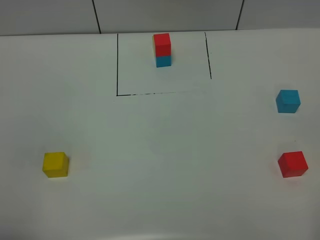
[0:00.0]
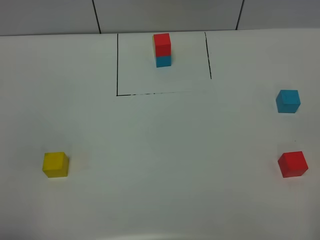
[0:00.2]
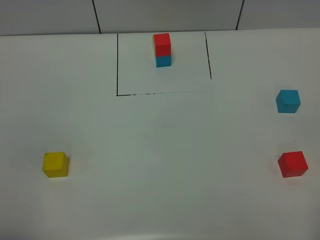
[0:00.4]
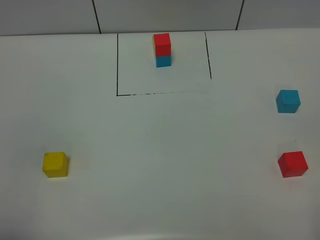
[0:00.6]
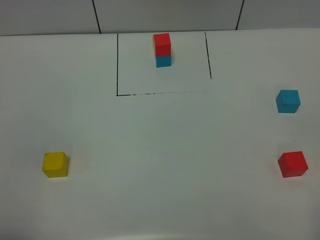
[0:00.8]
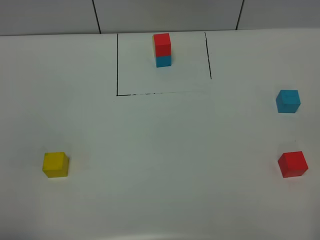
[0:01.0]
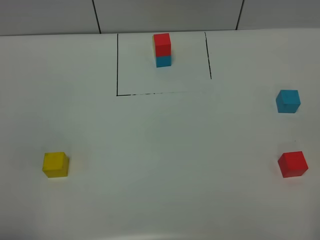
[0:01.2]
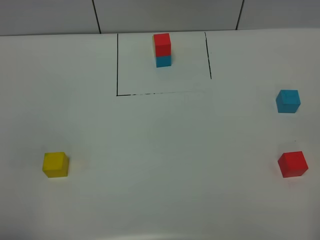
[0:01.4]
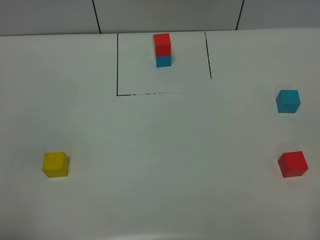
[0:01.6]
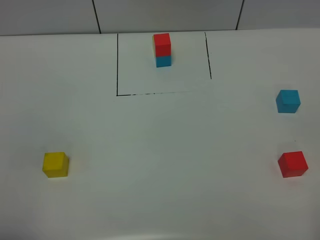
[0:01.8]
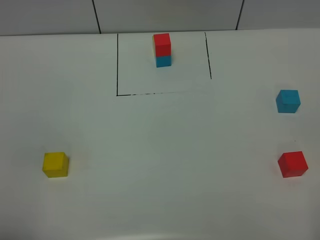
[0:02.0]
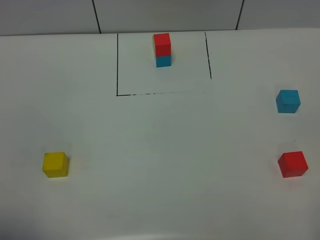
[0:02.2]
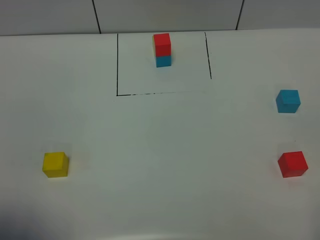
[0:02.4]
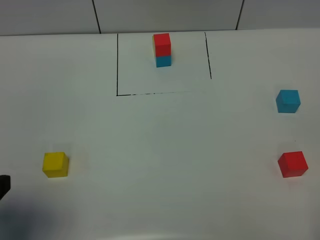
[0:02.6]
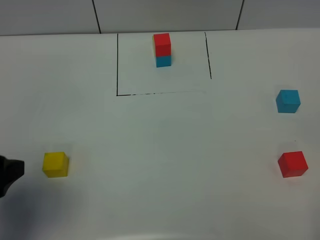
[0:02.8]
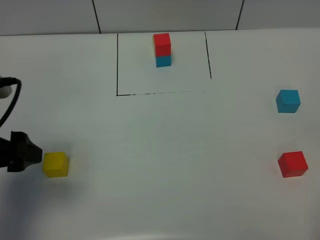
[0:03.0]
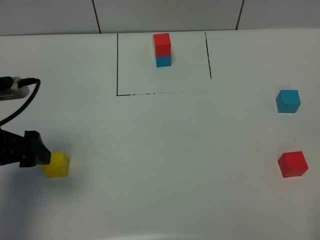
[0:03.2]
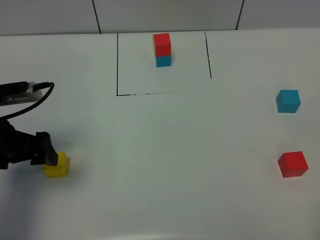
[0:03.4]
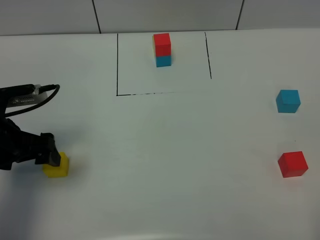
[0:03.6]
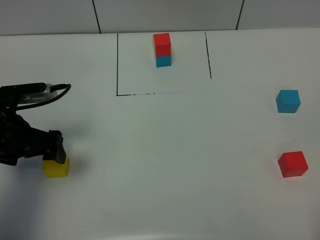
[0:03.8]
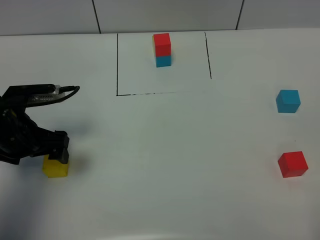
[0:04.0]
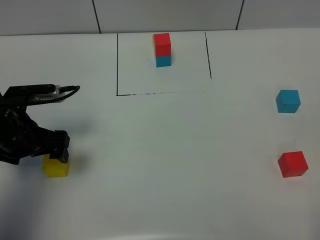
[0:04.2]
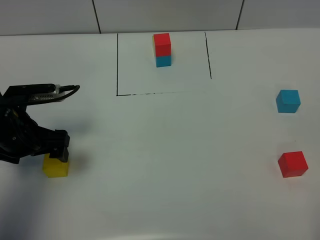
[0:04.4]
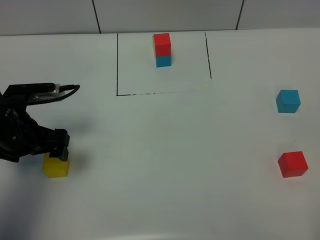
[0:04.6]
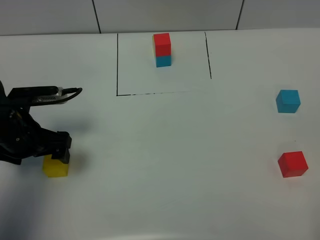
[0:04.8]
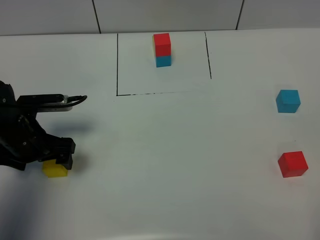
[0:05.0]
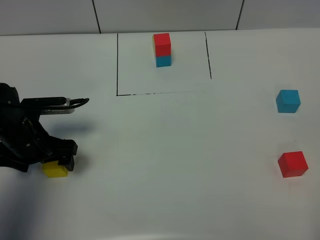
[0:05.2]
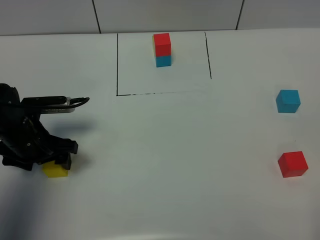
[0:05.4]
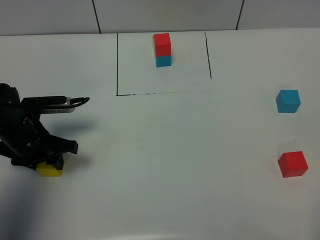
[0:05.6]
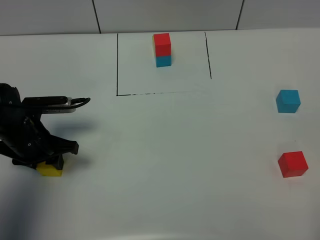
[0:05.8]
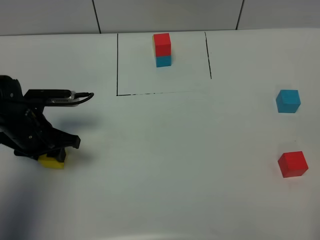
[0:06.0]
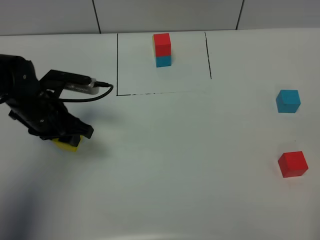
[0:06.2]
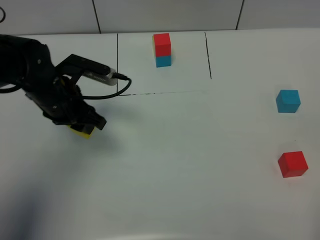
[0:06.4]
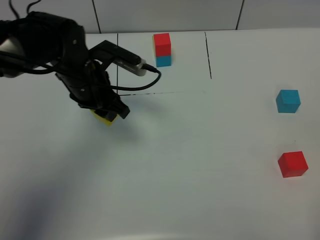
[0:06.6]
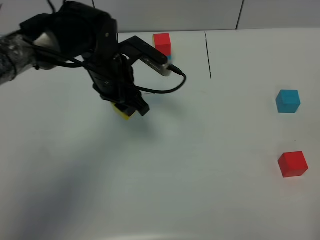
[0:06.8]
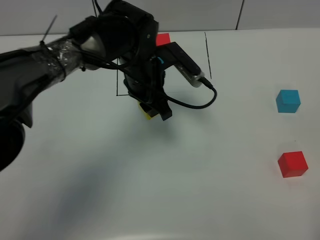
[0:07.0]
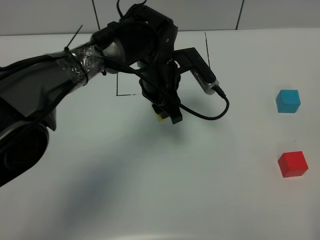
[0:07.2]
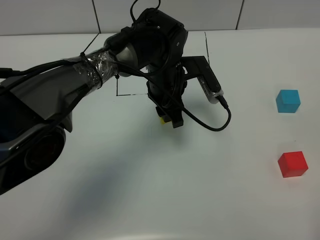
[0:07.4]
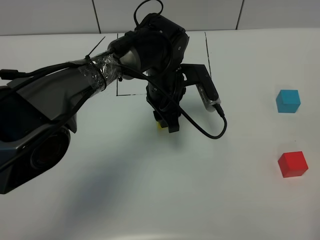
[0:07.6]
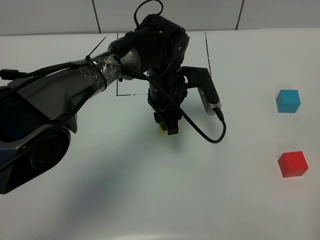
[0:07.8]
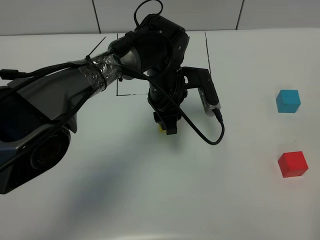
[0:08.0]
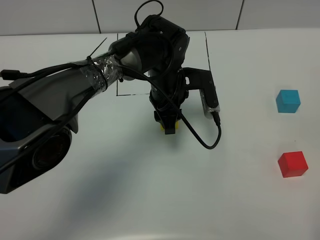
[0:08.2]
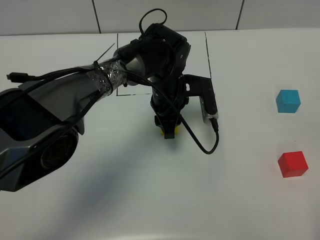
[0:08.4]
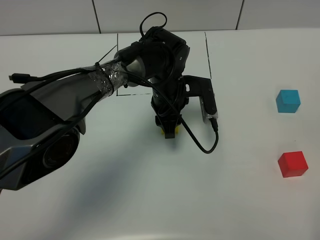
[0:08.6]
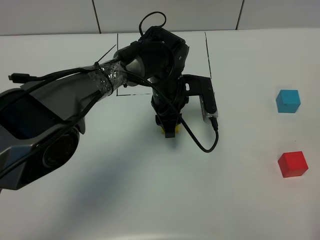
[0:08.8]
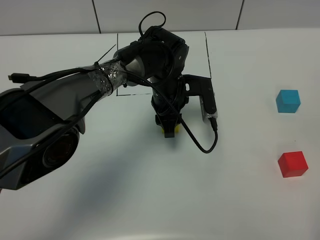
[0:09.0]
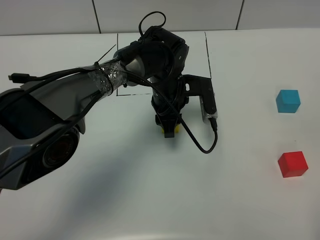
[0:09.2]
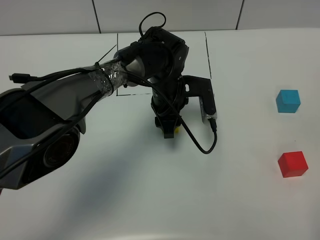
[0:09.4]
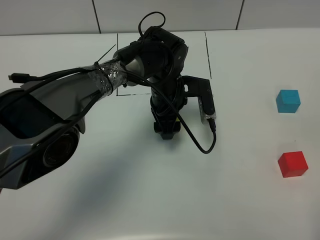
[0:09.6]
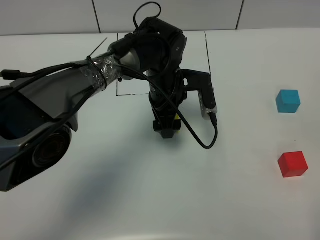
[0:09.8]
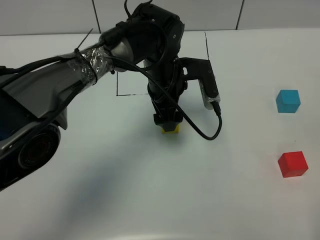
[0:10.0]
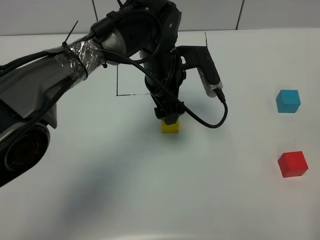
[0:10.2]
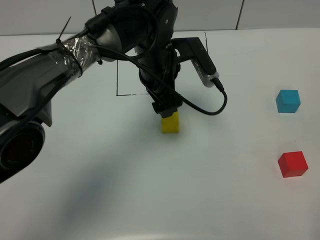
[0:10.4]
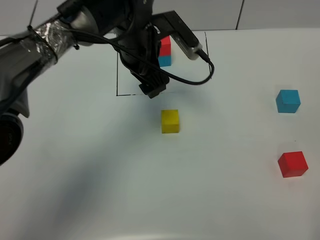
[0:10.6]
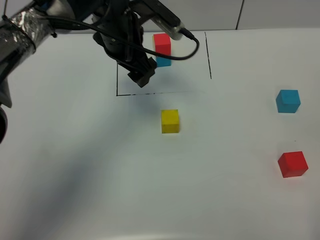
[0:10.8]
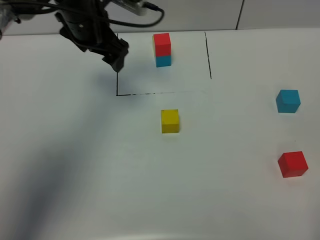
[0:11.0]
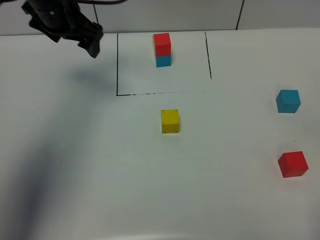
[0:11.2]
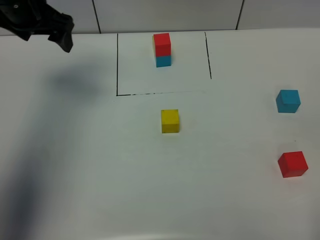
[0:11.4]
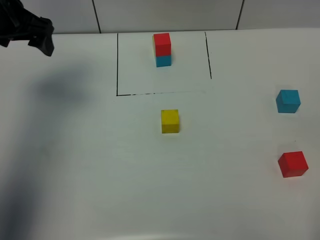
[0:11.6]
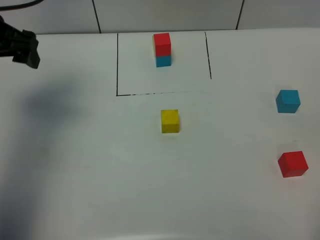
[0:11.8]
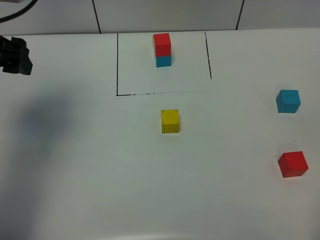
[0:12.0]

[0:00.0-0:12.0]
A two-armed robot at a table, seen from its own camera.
Task of the whole recording: According to the building block template in front, assemble the scattered blocks together.
Step, 0:00.0 to 0:09.2: Put the yellow build block in the center of the table.
0:00.0 to 0:01.6: Both grippers stay put.
0:01.6 to 0:03.0: The left gripper is displaced forward by approximately 20 cm, and opens.
0:03.0 to 0:04.4: The left gripper shifts some 15 cm downward and forward.
0:04.4 to 0:06.0: The left gripper closes up.
0:06.0 to 0:07.6: The left gripper is displaced to the right by roughly 25 cm.
0:07.6 to 0:09.0: The grippers make only small movements.
0:09.0 to 0:10.4: The left gripper shifts about 10 cm upward, and opens.
0:10.4 to 0:12.0: The left gripper shifts some 30 cm to the left and upward.

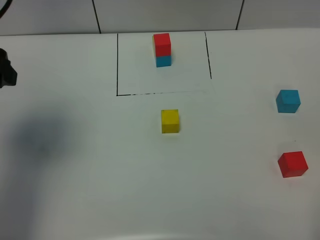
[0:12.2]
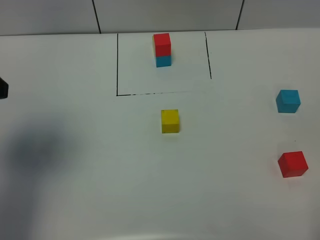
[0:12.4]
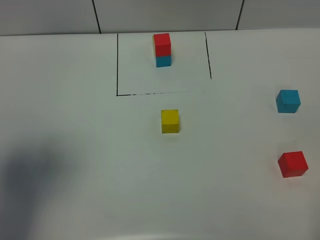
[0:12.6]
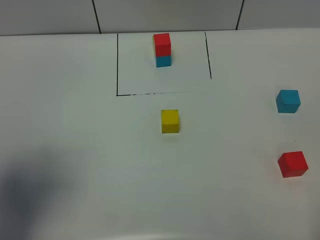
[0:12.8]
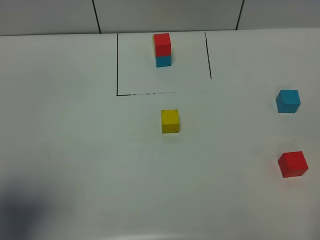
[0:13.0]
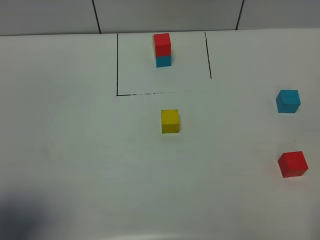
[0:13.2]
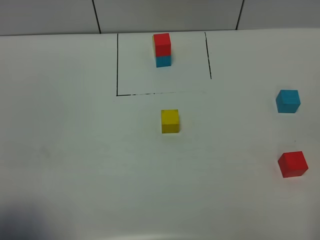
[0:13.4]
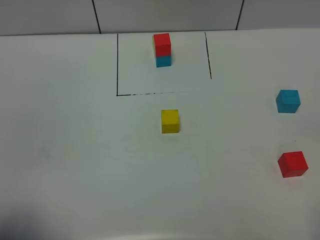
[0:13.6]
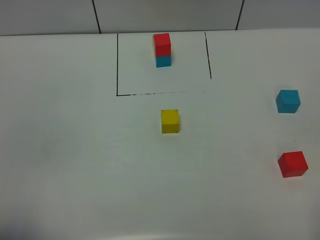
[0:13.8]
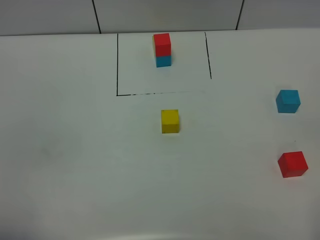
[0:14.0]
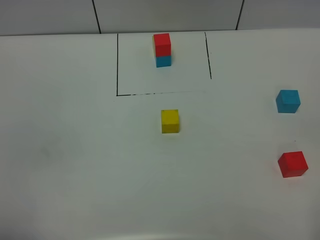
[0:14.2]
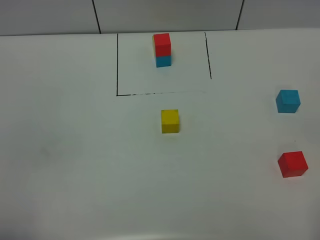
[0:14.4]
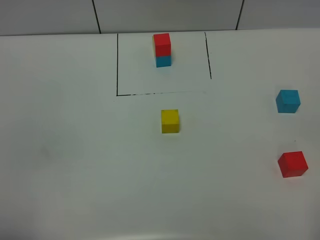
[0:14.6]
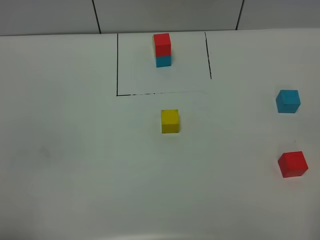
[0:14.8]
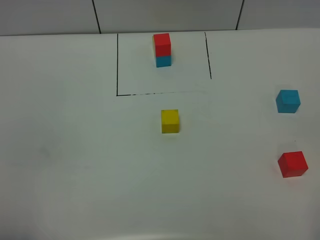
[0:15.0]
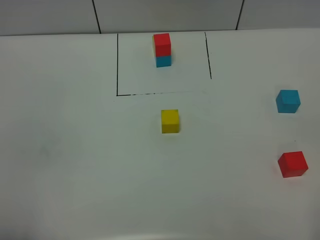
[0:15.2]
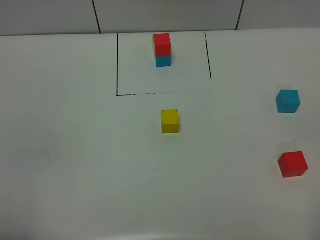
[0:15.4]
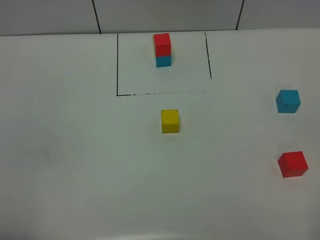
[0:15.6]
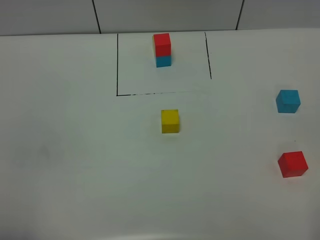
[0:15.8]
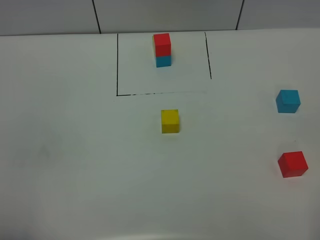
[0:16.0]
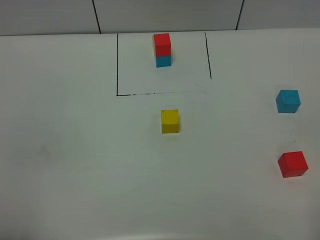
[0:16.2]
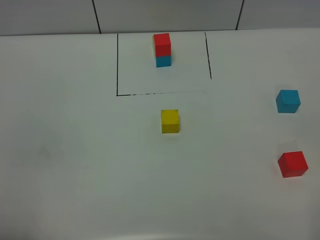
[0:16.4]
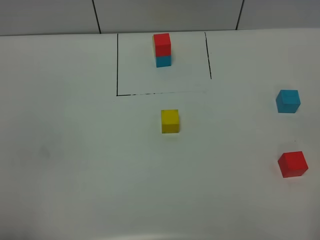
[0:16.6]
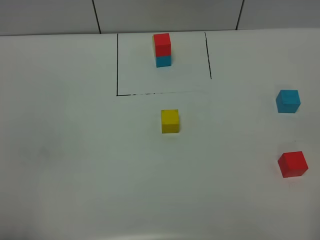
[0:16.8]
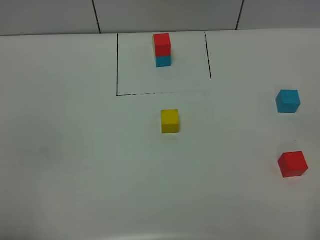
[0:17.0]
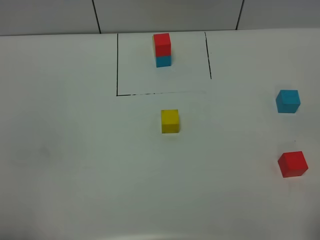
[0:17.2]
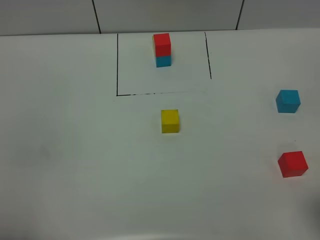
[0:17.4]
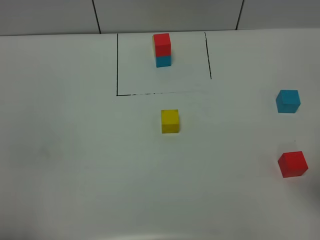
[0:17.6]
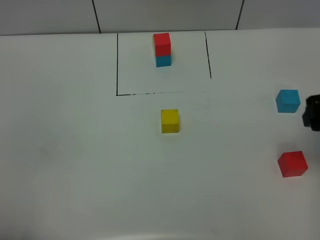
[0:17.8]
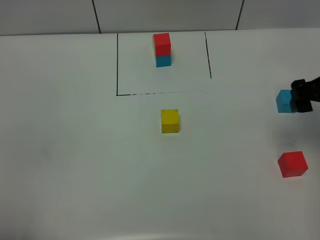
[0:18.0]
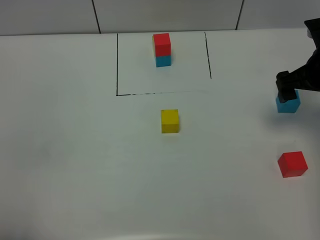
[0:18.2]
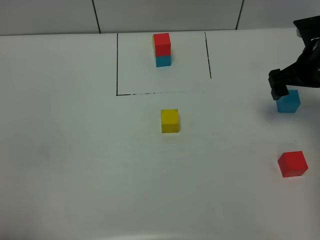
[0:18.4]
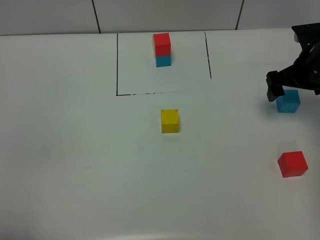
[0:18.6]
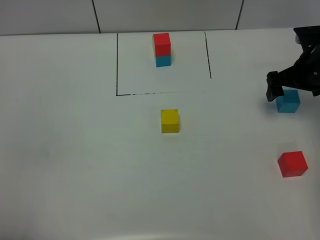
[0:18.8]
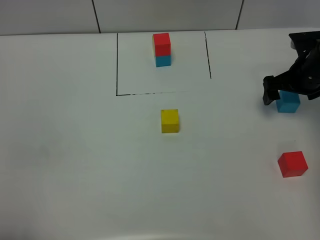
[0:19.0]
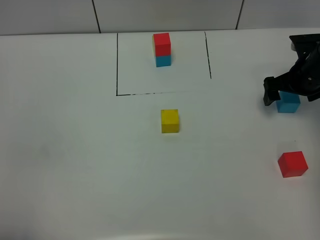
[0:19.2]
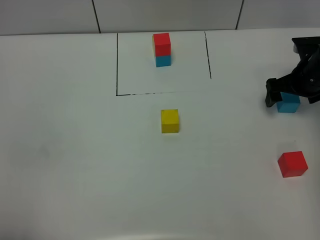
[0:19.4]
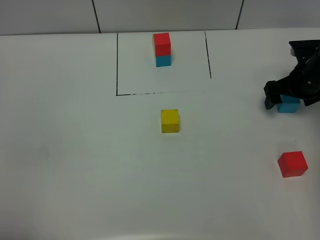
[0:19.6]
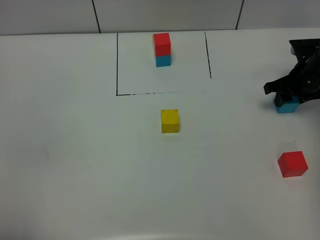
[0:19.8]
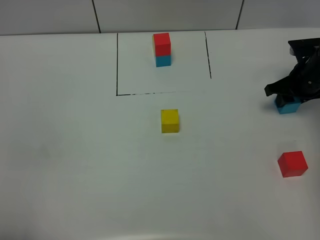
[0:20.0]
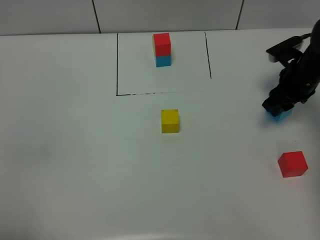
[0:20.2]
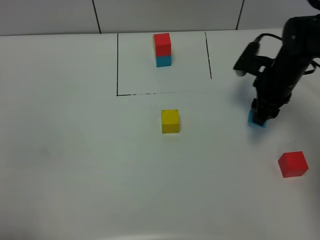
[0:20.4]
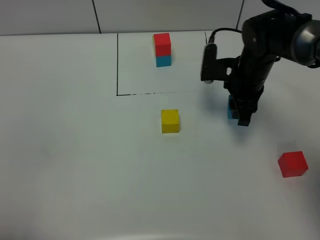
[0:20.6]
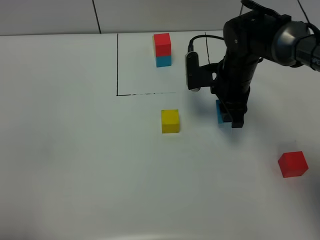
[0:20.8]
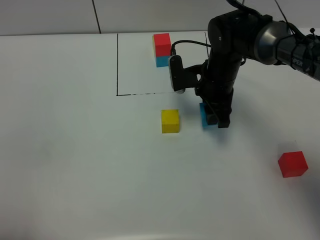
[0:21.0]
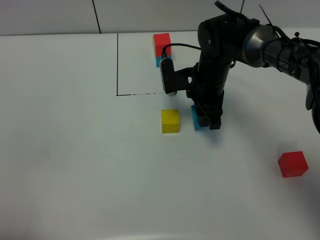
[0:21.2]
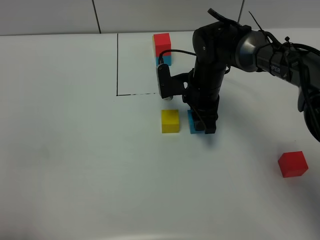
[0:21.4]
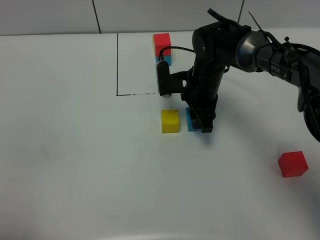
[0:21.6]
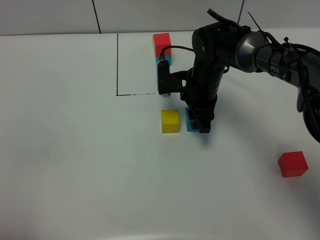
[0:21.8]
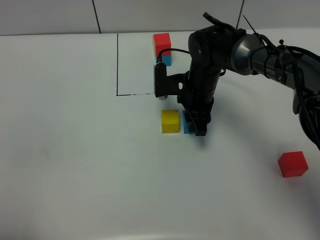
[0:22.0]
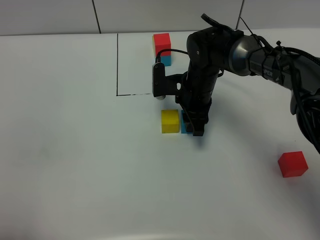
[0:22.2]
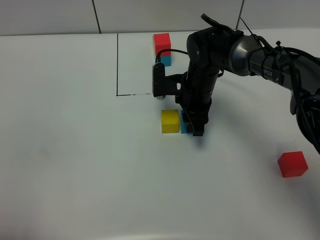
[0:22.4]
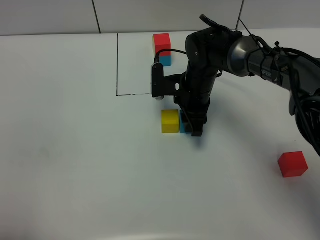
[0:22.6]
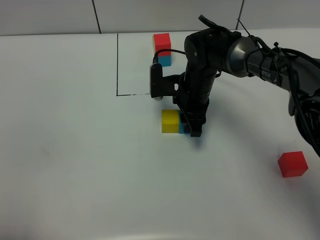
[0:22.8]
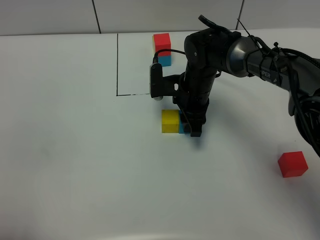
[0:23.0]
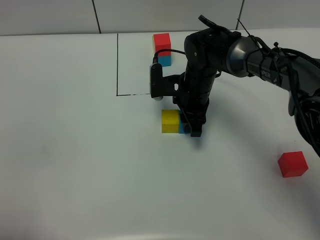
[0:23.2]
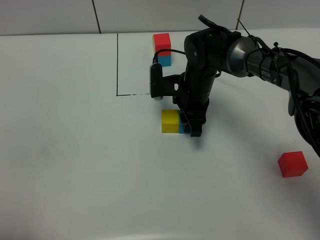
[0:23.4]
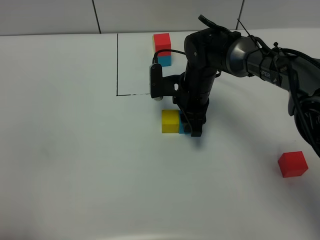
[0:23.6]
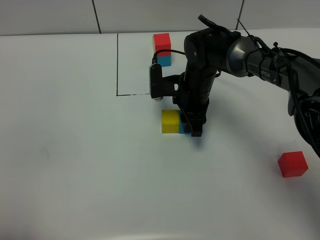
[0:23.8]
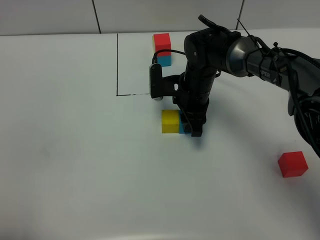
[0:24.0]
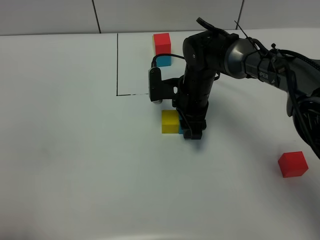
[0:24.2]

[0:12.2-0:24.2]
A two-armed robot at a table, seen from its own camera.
Task of the whole recording: According to the building block template in front, assemble the scattered blocks together.
Step, 0:12.2 to 0:24.0: Put the blue build block on the right of the yellow build block.
0:12.2 to 0:13.8: The left gripper shifts approximately 25 cm backward.
0:15.2 to 0:16.6: Both grippers stay about where they are.
0:16.6 to 0:18.2: The right gripper heads forward, covering roughly 35 cm.
0:18.2 to 0:19.8: The right gripper shifts approximately 10 cm downward and forward, and closes up.
0:19.8 to 0:21.2: The right gripper is displaced to the left by approximately 20 cm.
0:21.2 to 0:22.6: The grippers make only small movements.
0:22.6 to 0:24.2: Both grippers stay put.
